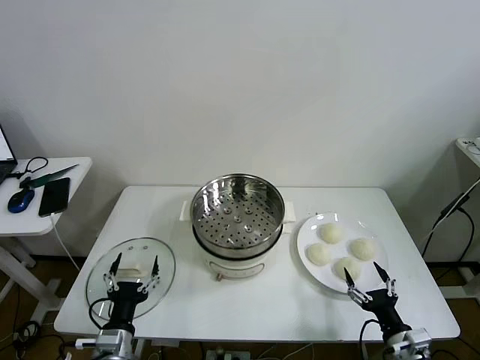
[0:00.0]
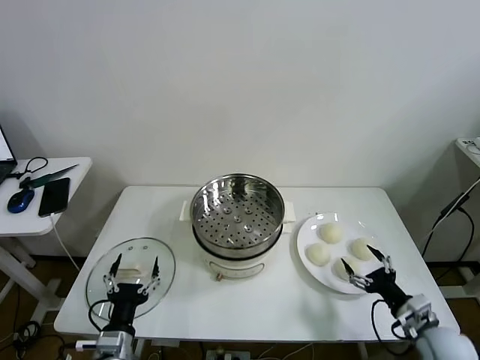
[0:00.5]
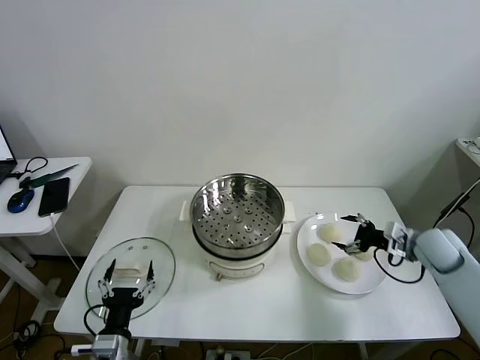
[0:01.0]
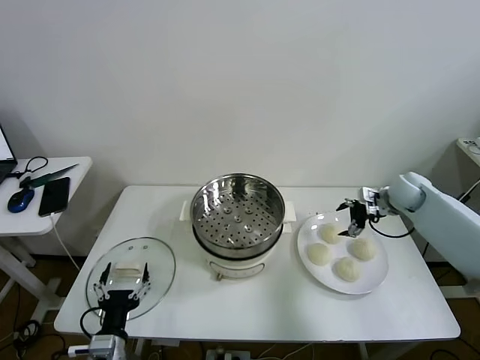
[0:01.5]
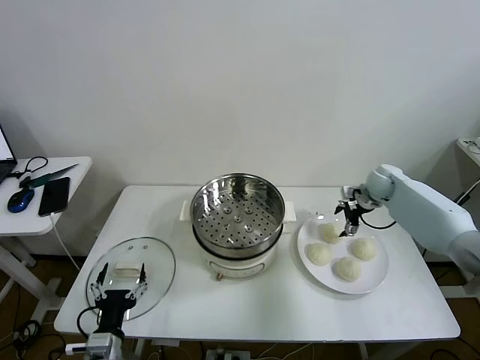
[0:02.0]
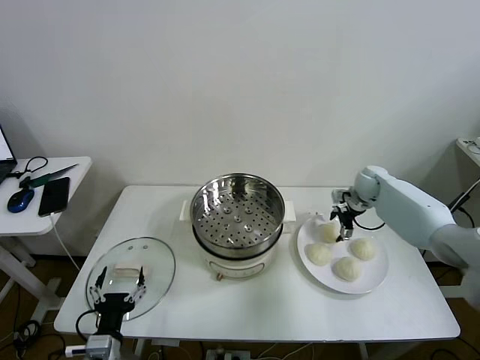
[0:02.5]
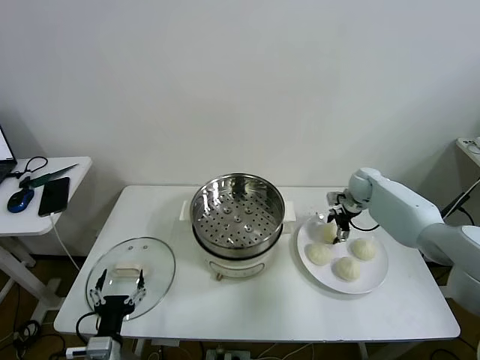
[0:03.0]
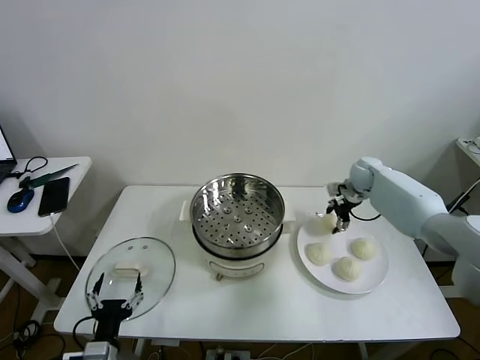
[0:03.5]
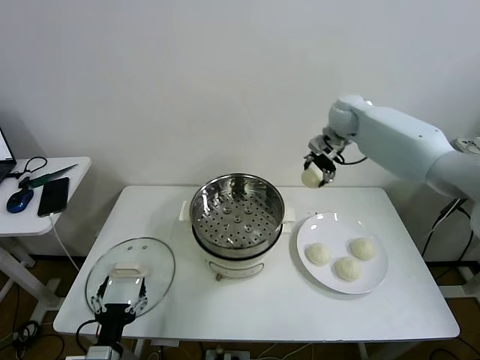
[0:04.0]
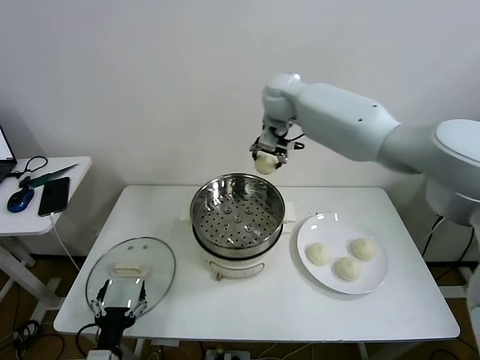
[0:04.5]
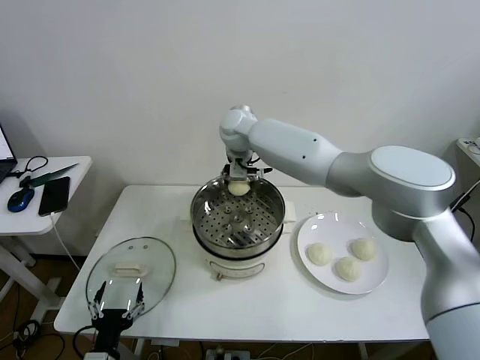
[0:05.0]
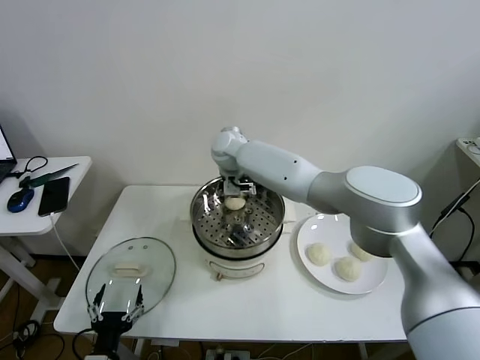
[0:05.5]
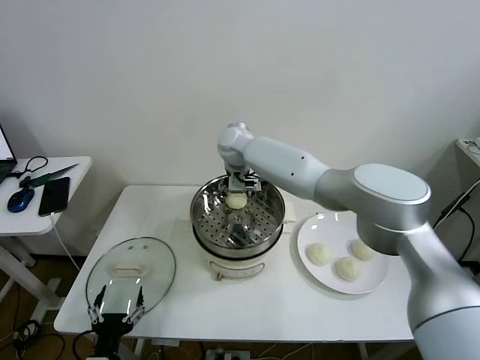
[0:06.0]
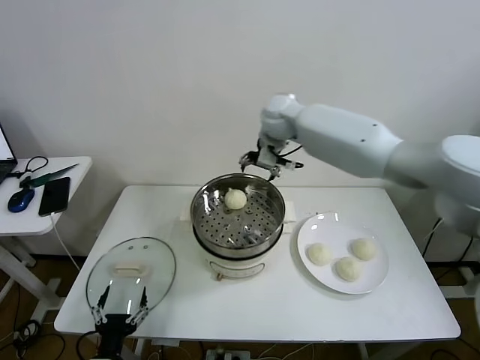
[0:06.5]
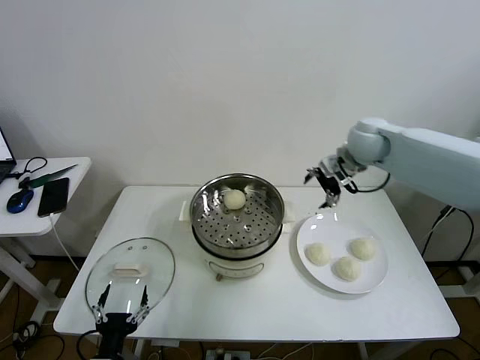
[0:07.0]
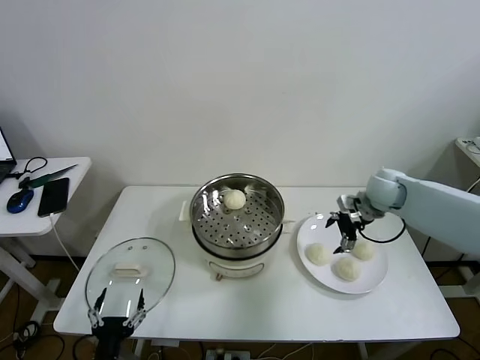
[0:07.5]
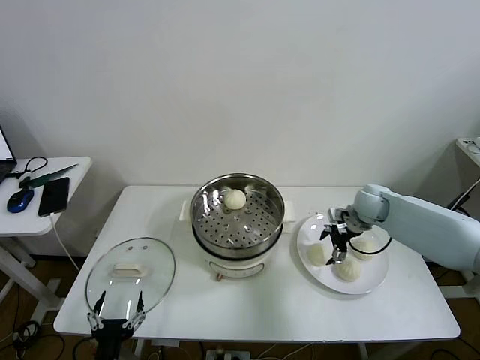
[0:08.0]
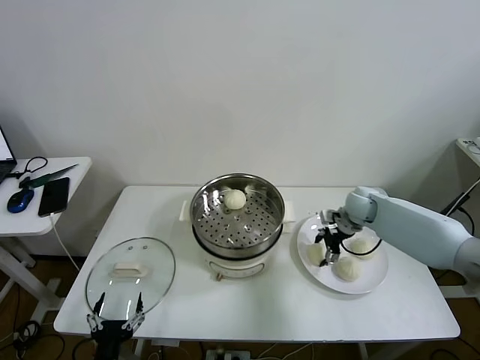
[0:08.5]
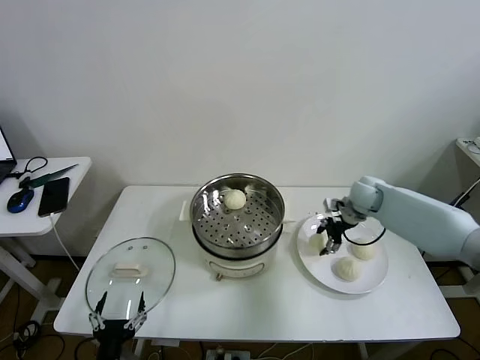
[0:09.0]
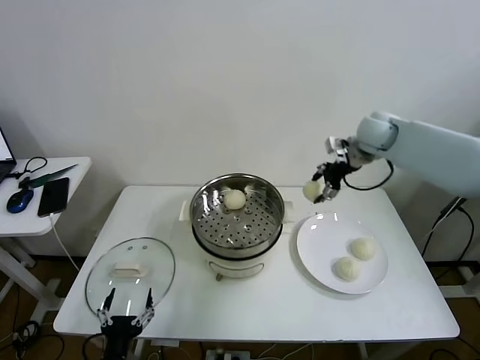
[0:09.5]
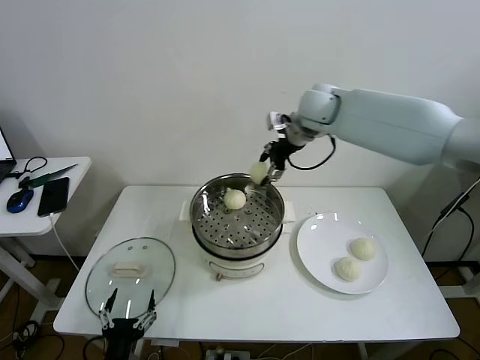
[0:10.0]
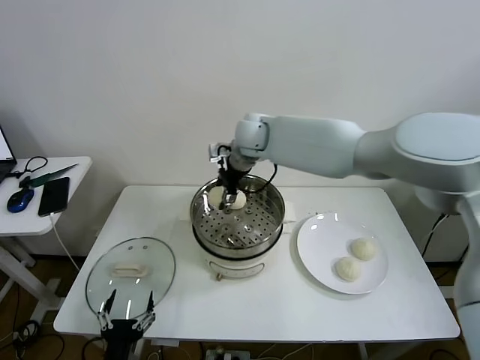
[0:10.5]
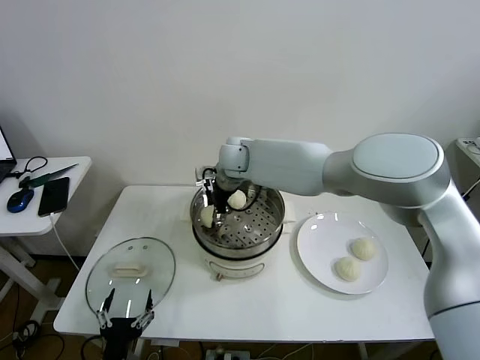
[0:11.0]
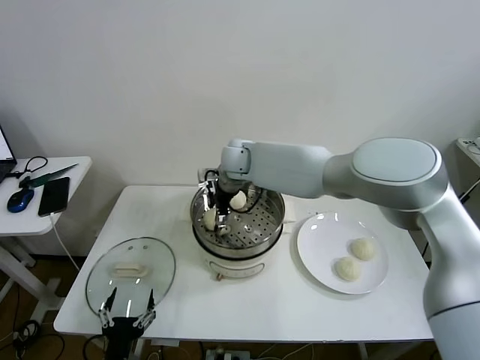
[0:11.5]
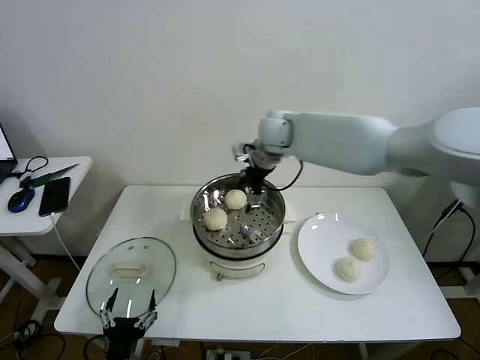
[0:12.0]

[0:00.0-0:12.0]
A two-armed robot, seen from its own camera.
Task of the whole recording: take steamed baozi put them in steamer then cover it.
Step, 0:00.0 to 0:03.0: Grasp the baozi in the plate with right gripper.
Step, 0:03.5 to 0:06.0: Place the baozi on the steamer with right gripper.
Step, 0:06.5 to 0:08.5: Grasp the baozi in the plate with right gripper.
Step, 0:09.0 to 0:11.5: Place the baozi on the steamer with right gripper.
0:02.0 to 0:04.0: The right gripper travels upward and to the left by roughly 30 cm, and closes.
0:04.0 to 0:06.0: The right gripper travels to the left and downward by some 20 cm, and opens its fingers.
0:06.0 to 0:08.0: The right gripper heads to the right and downward, covering about 35 cm.
0:08.0 to 0:10.0: The right gripper is displaced upward and to the left by roughly 35 cm, and closes.
0:10.0 to 0:12.0: The right gripper goes to the left and returns, some 15 cm each way, and opens its fingers.

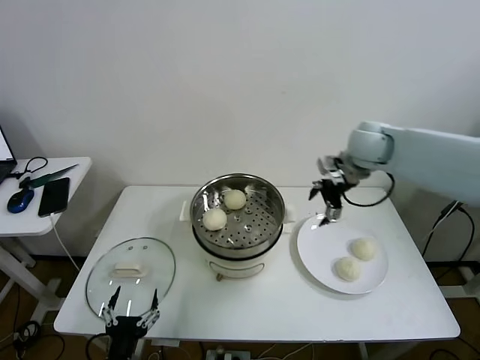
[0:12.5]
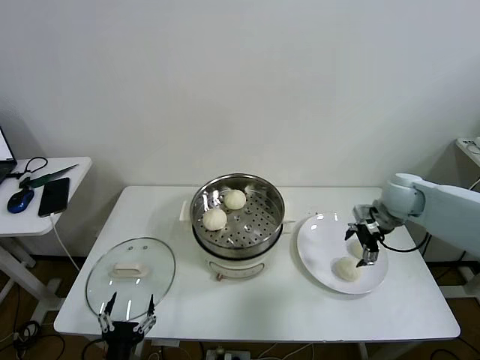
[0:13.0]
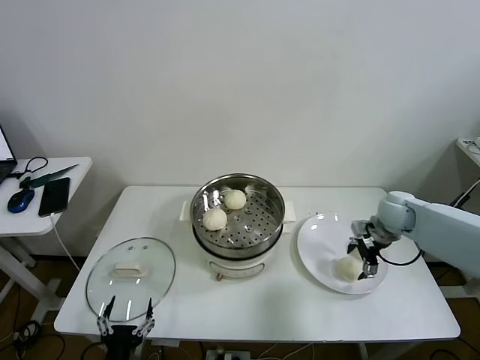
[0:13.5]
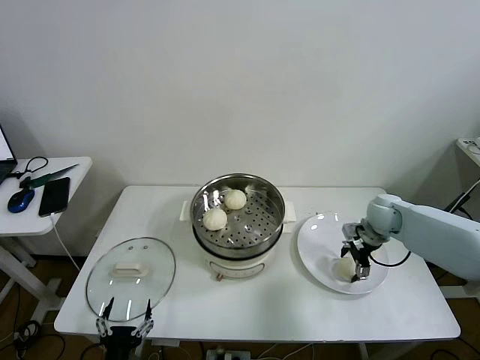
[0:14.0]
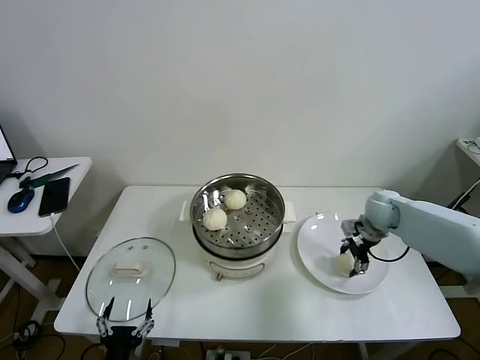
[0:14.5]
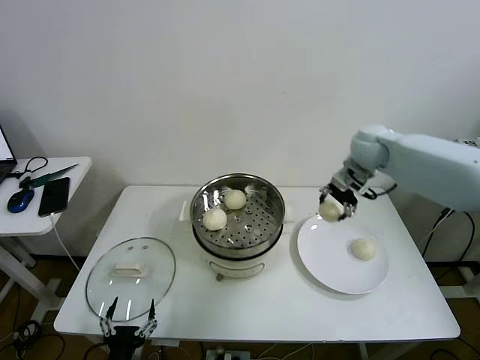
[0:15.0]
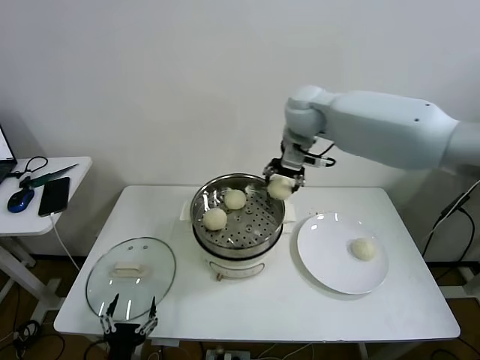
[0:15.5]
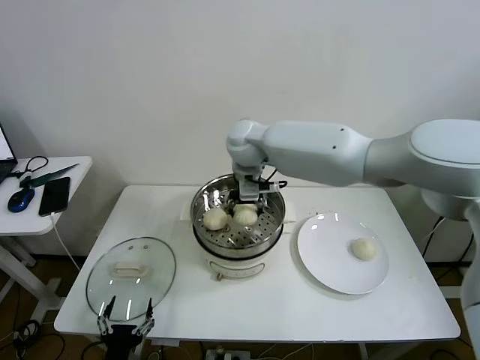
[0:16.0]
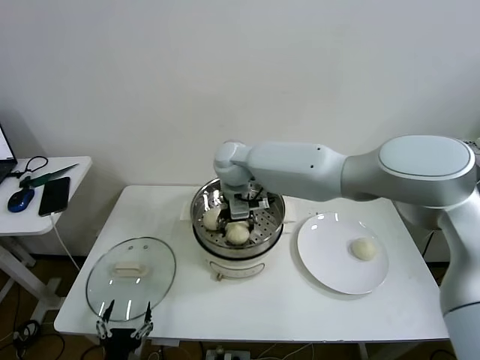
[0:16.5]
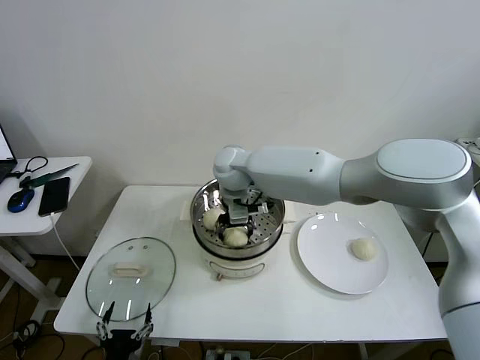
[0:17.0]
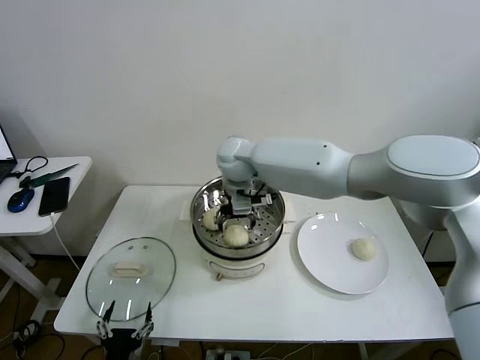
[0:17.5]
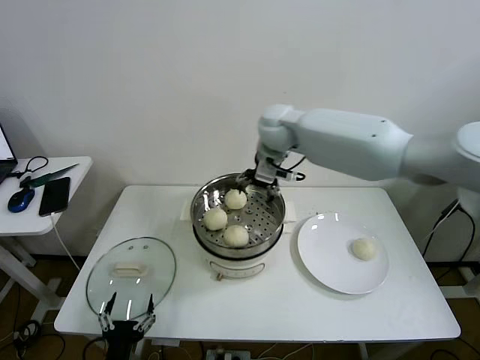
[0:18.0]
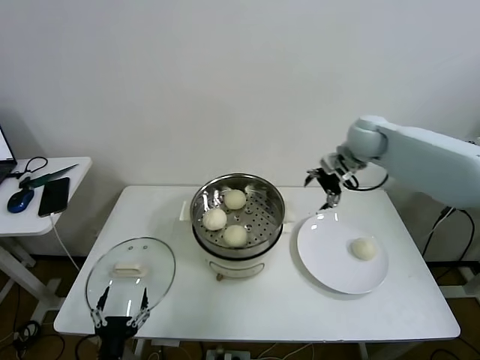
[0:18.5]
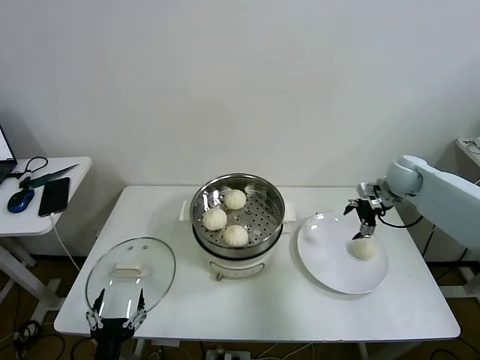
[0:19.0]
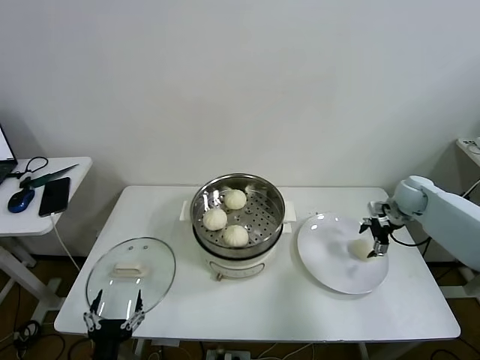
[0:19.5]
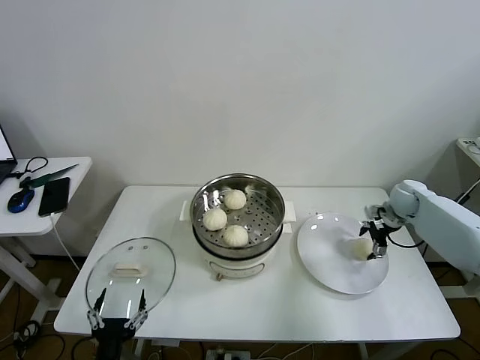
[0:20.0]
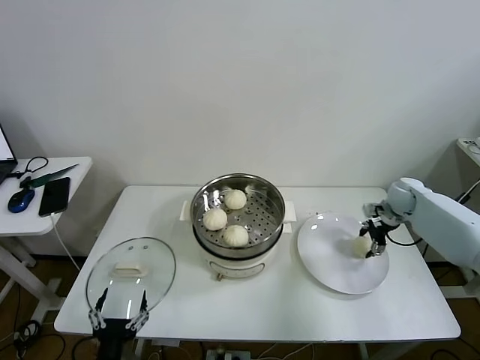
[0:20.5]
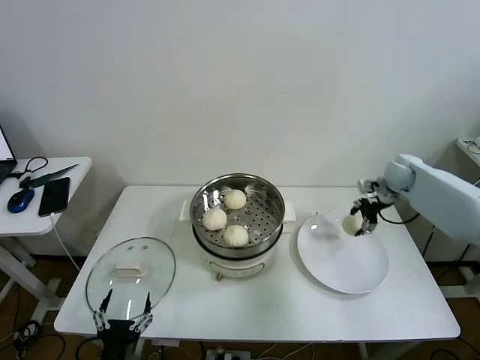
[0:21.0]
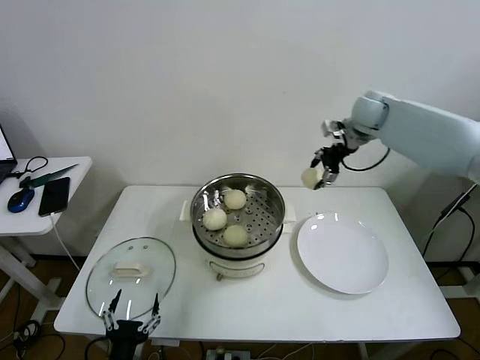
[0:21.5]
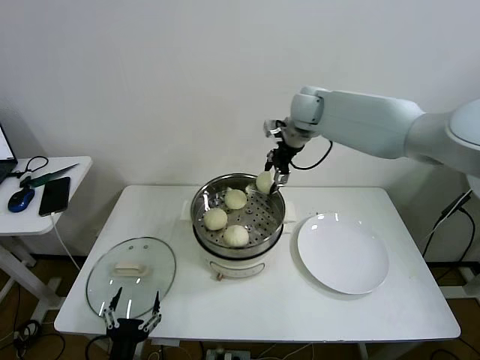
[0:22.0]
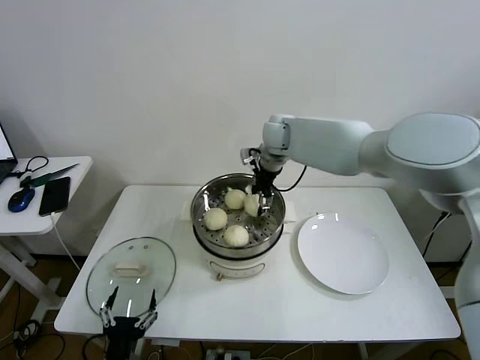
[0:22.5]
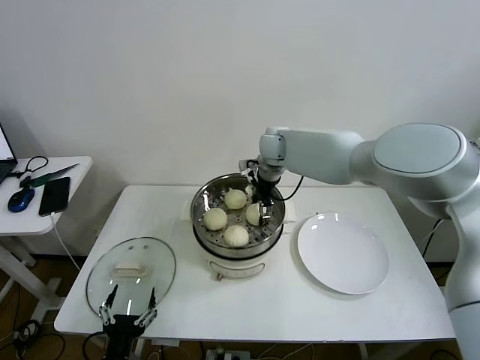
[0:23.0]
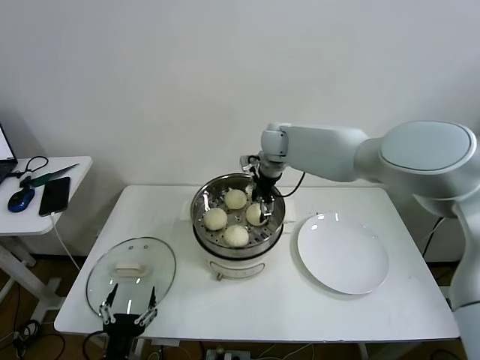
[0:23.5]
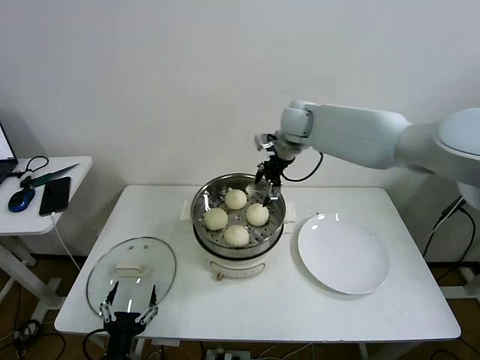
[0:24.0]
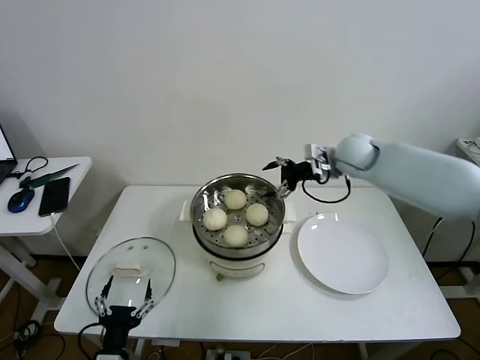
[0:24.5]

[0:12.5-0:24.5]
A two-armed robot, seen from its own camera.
Task of the whole recording: take steamed baozi put them in steamer then cover it.
Step, 0:12.5 to 0:14.0: Grasp the baozi in the plate with right gripper.
Step, 0:14.5 to 0:17.0: Place the baozi on the steamer with right gripper.
Step, 0:17.5 to 0:20.5: Grasp the baozi in the plate with right gripper.
Step, 0:21.0 to 0:23.0: Place the baozi on the steamer with right gripper.
0:12.5 to 0:14.5: The right gripper moves downward, roughly 15 cm, and closes its fingers.
0:14.5 to 0:16.5: The right gripper shifts some 40 cm to the left.
0:16.5 to 0:18.5: The right gripper heads to the right, covering approximately 35 cm, and opens.
0:18.5 to 0:20.5: The right gripper is displaced downward and to the right by about 20 cm, and closes.
0:20.5 to 0:22.5: The right gripper goes roughly 40 cm to the left and upward.
0:22.5 to 0:24.5: The right gripper shifts about 20 cm to the right, and opens up.

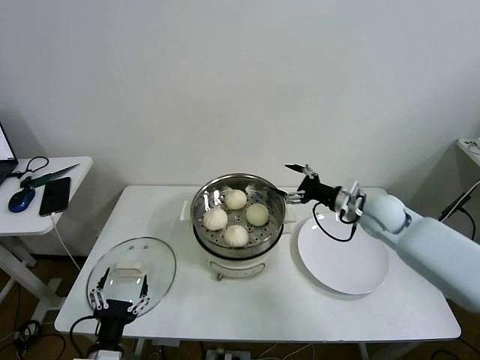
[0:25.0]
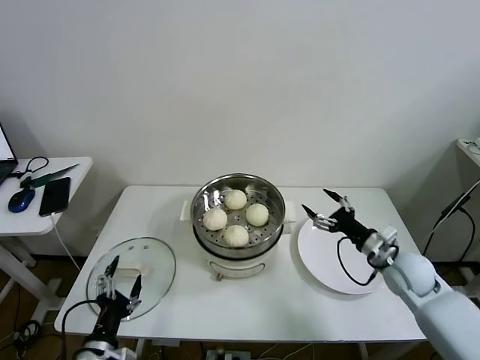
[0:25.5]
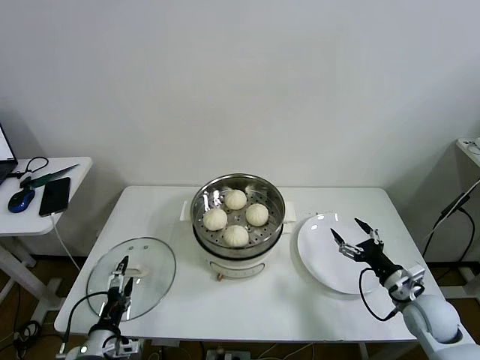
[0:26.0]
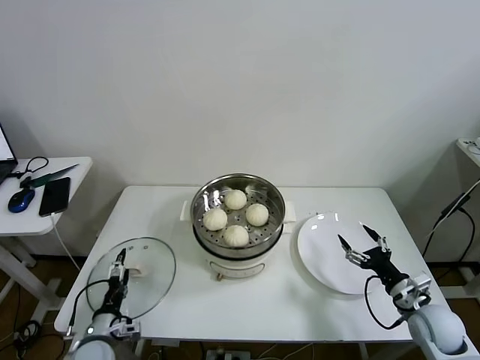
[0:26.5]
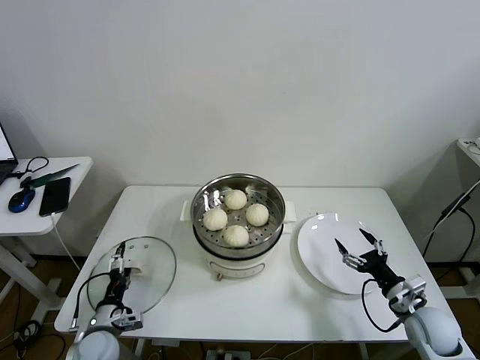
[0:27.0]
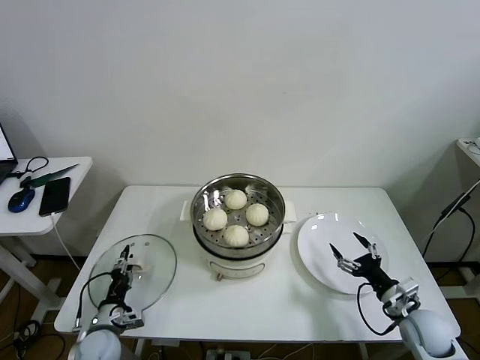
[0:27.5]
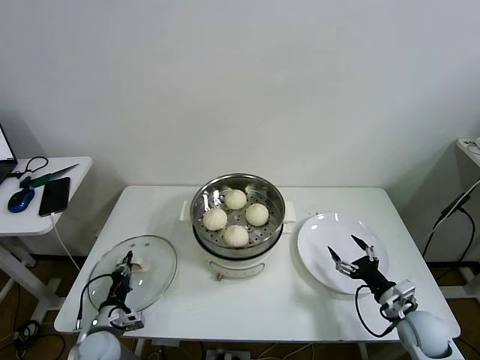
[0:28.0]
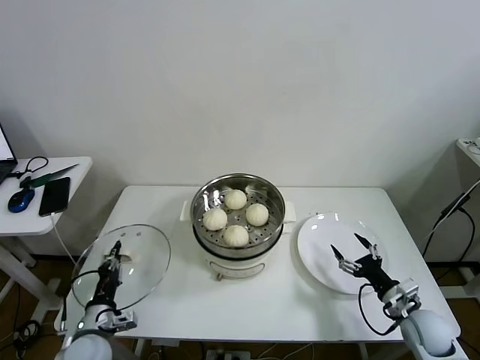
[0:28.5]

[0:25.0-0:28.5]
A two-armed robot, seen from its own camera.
Task of the whole recording: take steamed baozi put them in steamer then cover it.
Step, 0:25.0 to 0:27.5: Grasp the pot lid with left gripper.
0:25.0 to 0:27.0: The left gripper travels forward, downward and to the left by approximately 15 cm. Meanwhile the right gripper goes some 25 cm backward, downward and to the right.
0:27.0 to 0:28.5: The left gripper closes.
